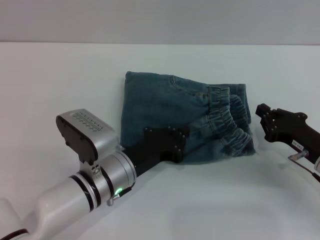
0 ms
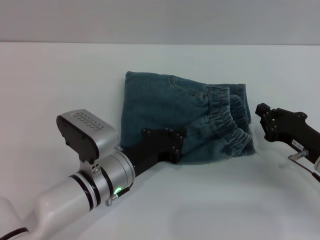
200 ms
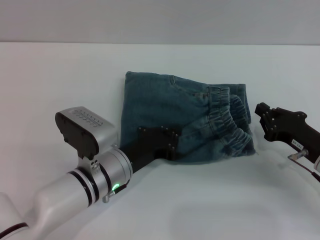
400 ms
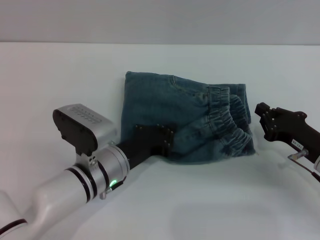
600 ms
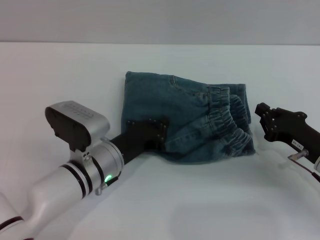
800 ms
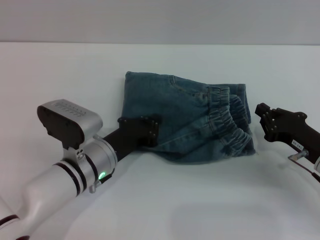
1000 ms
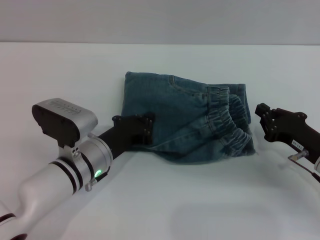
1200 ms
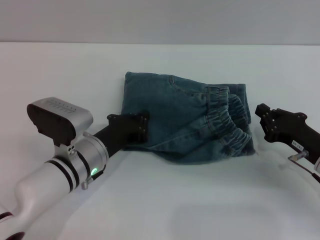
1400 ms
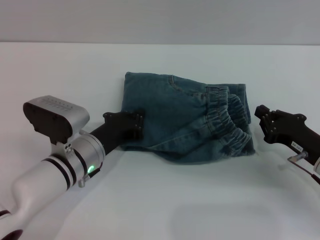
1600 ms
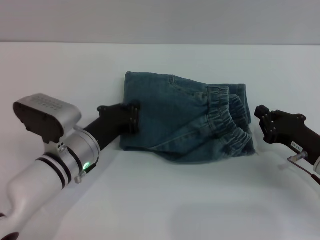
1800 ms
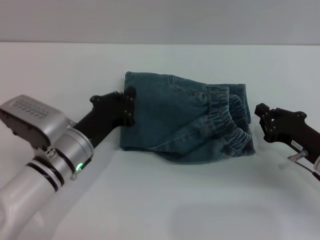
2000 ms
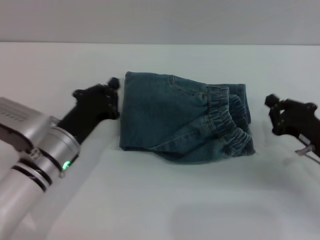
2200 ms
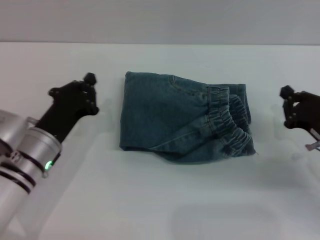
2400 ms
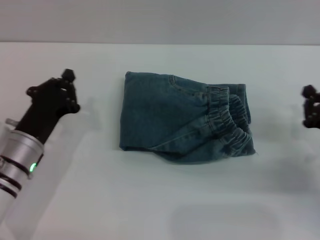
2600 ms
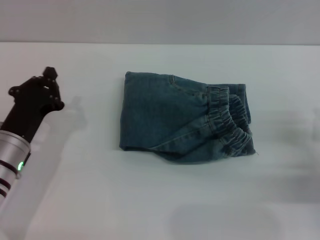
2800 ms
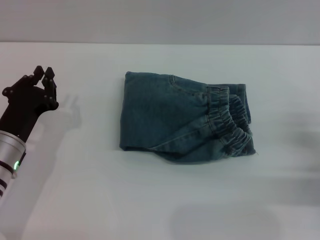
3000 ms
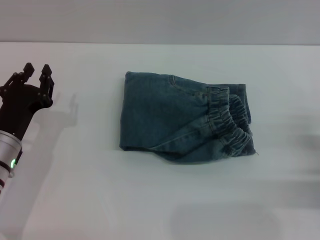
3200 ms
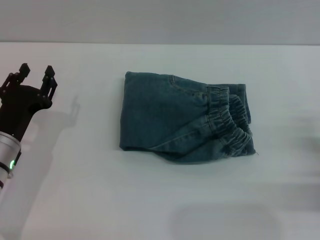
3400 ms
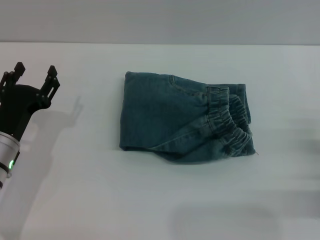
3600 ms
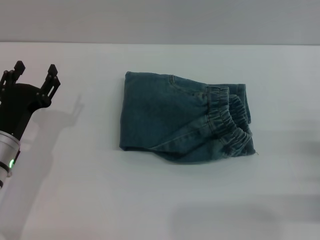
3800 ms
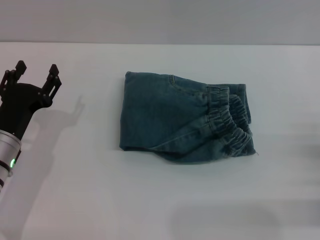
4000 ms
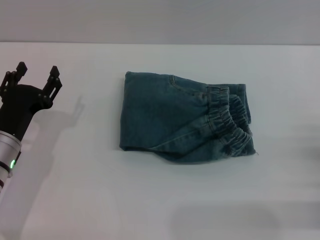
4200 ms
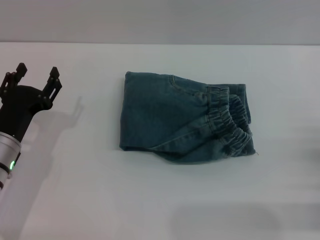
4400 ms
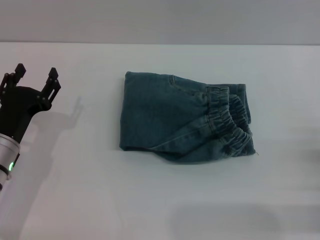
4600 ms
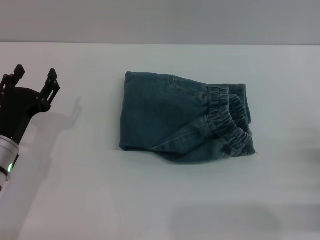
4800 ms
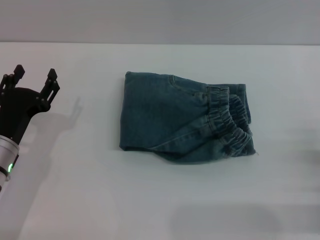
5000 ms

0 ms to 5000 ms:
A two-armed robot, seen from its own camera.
0 ms to 1600 ms: The left gripper moves roughly 5 cm.
1600 ms to 3400 ms: The right gripper moves to the right, about 10 cm, and opens up. The left gripper travels to the left by roughly 10 cm, and opens.
3400 ms to 5000 ms: The left gripper opens.

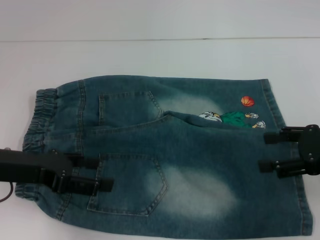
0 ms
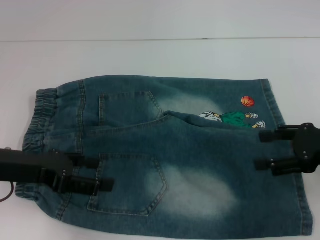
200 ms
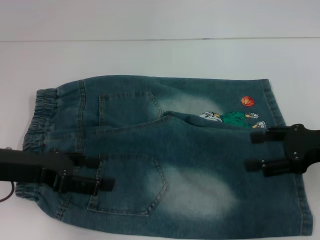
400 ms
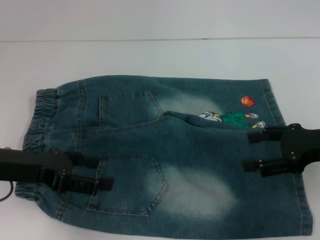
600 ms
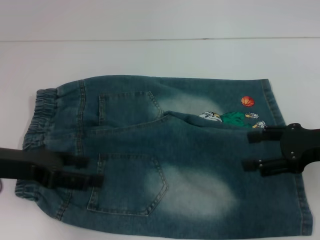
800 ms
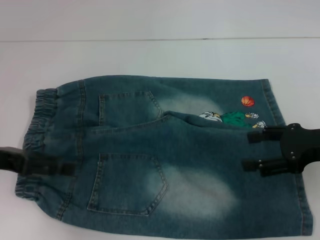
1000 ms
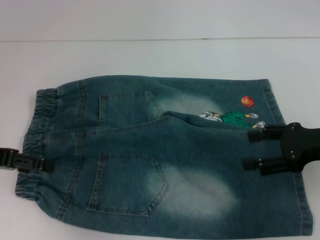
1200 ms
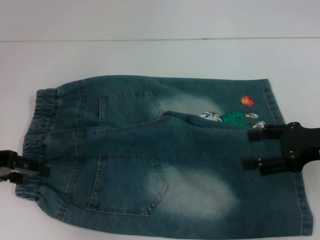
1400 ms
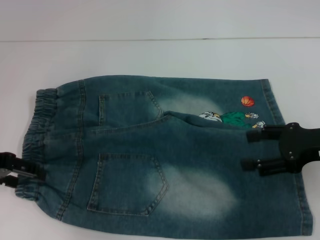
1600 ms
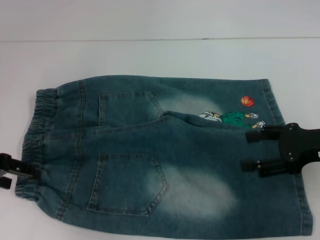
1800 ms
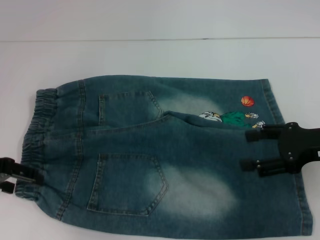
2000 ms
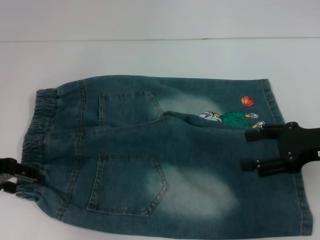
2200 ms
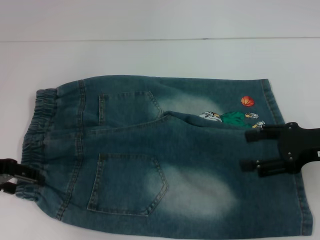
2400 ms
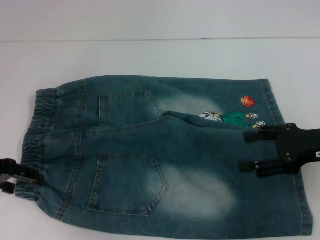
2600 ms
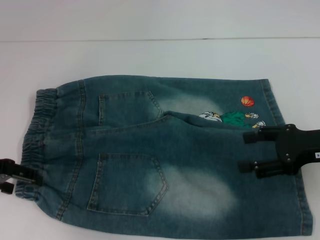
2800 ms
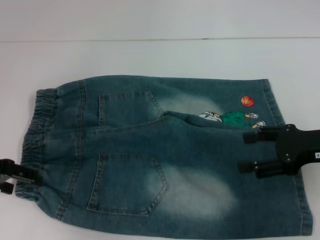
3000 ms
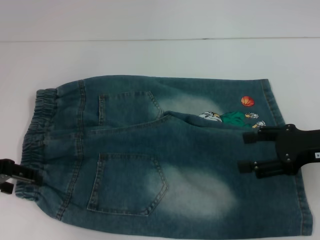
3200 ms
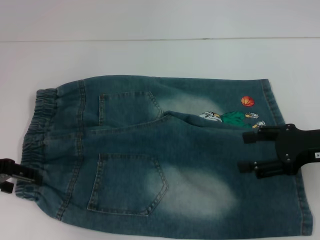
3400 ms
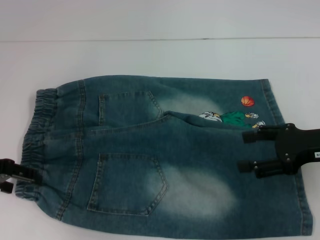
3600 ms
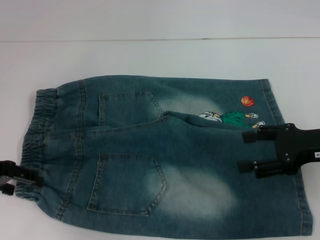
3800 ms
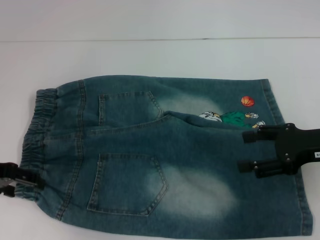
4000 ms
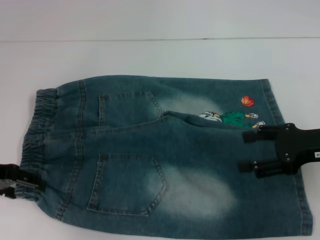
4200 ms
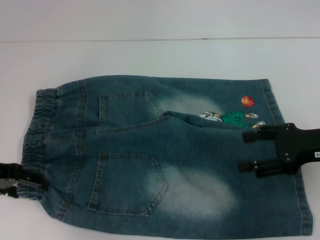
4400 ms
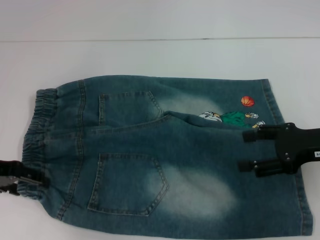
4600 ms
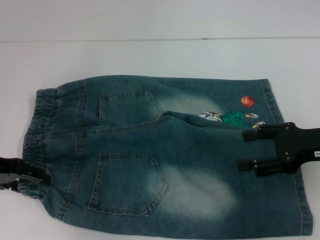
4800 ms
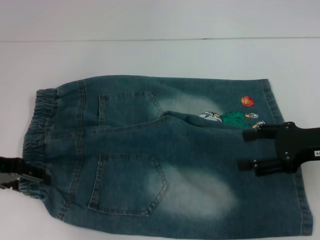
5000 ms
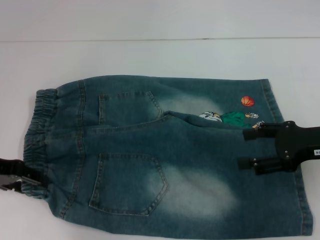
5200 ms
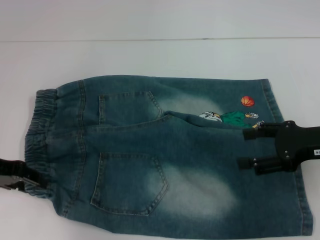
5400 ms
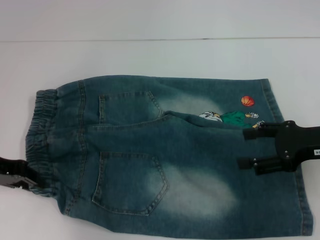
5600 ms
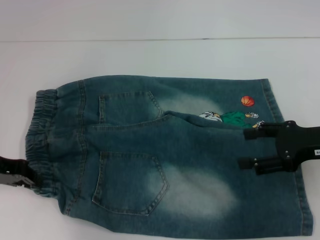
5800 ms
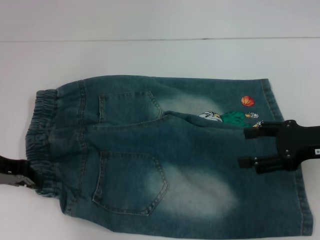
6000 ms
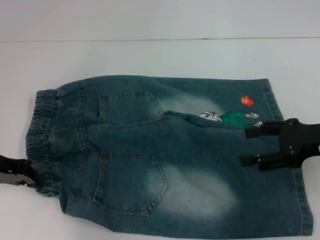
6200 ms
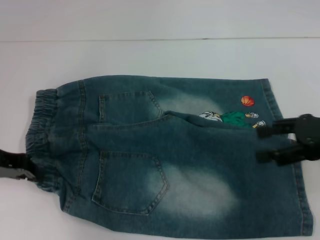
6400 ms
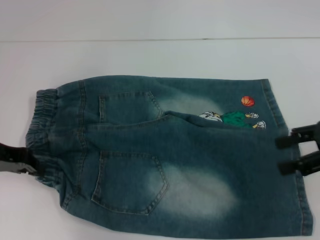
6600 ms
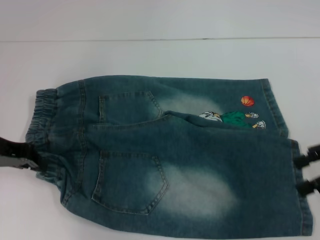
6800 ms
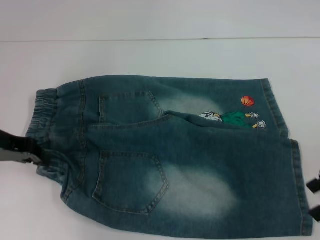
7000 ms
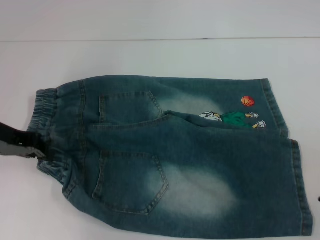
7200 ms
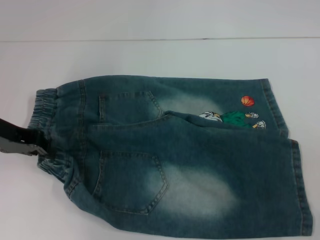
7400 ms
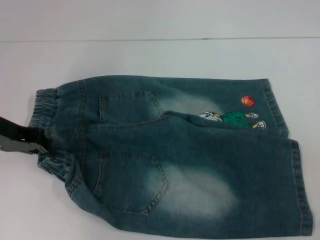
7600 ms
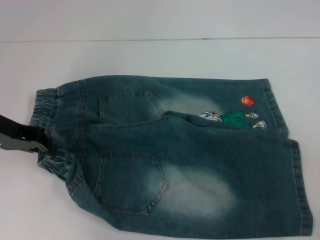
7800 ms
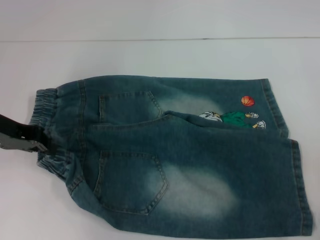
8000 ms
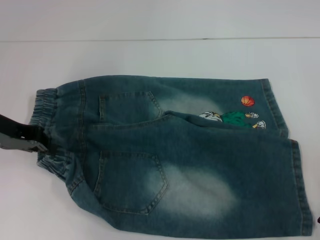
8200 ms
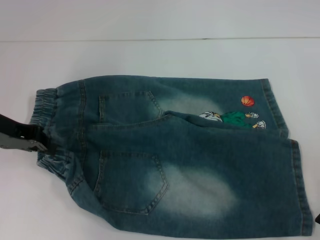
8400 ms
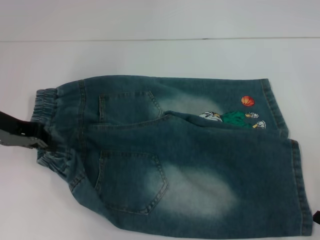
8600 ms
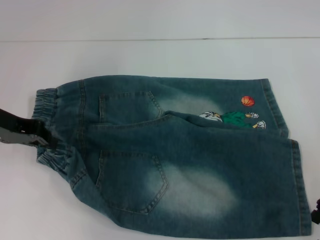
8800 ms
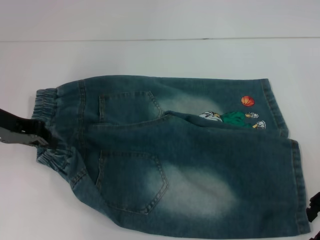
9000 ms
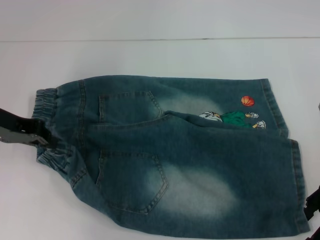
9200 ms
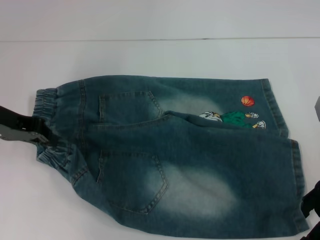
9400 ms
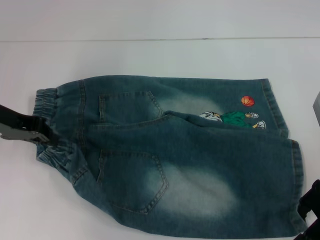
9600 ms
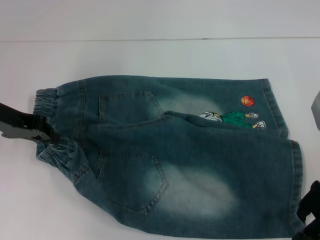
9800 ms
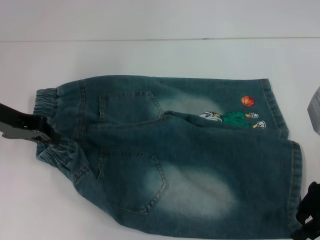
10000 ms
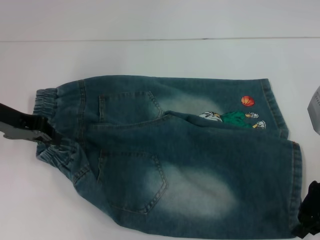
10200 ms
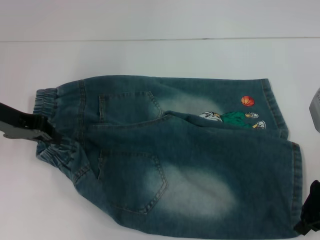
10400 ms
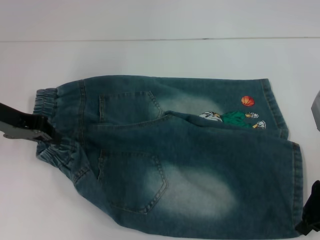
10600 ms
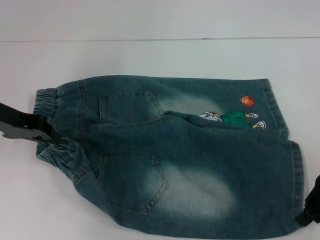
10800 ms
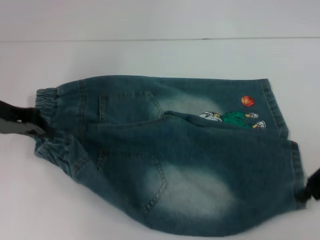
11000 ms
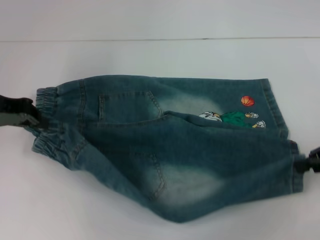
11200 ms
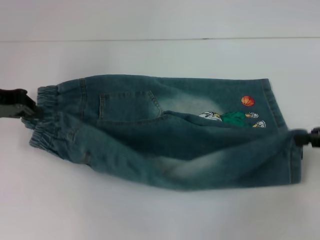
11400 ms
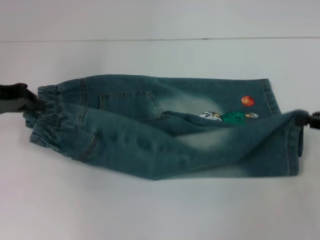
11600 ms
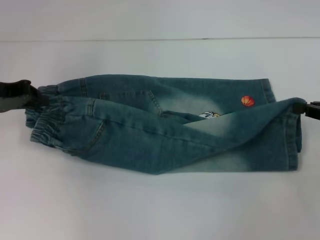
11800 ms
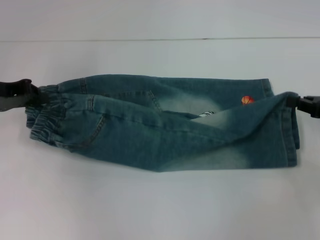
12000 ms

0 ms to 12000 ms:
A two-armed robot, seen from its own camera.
Step, 0 ms to 6400 ms: Hold the lower left waistband with your left hand.
Step, 6600 ms to 10400 ms: Grab the lower right pant leg with your right hand.
0 ms to 1600 ms: The left gripper shifts roughly 5 cm to the left.
1600 ms to 3000 ms: The grippers make only small movements.
3000 ms to 4400 ms: Neither gripper changes place.
4400 ms to 6000 ms: The left gripper closes.
7600 ms to 9000 ms: The grippers stay close to where they were, moving slightly.
9000 ms to 10400 ms: The right gripper closes.
10400 ms to 12000 ms: The right gripper moves to the right, roughly 10 cm.

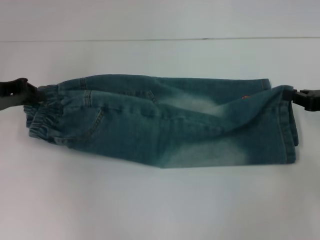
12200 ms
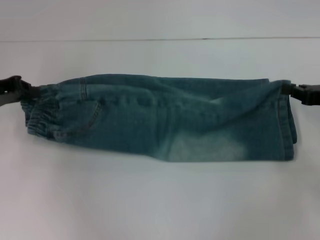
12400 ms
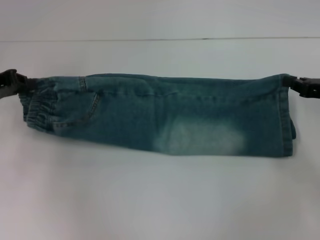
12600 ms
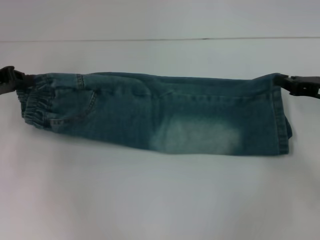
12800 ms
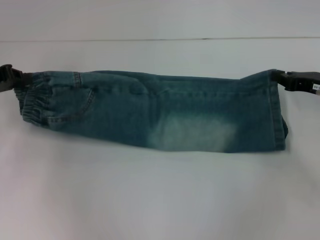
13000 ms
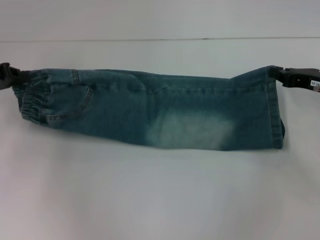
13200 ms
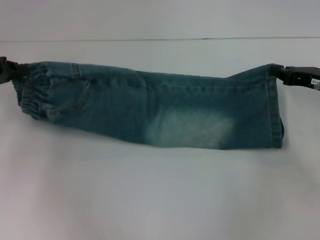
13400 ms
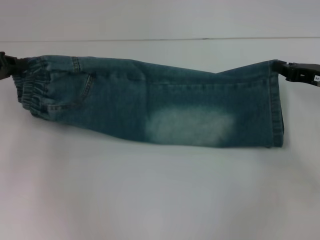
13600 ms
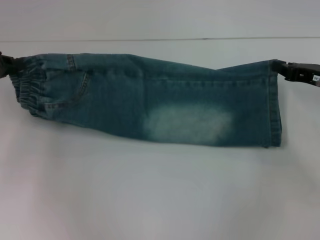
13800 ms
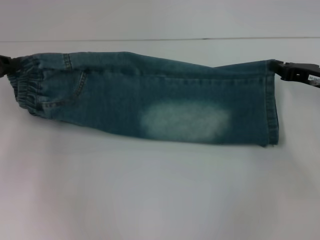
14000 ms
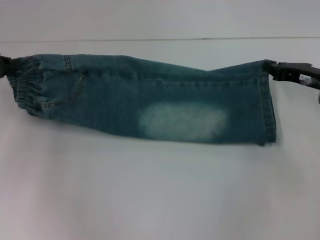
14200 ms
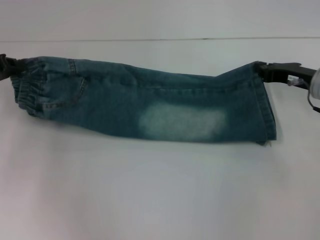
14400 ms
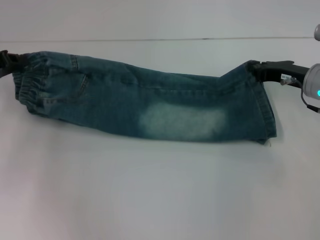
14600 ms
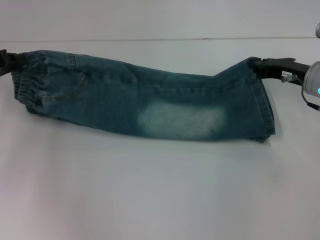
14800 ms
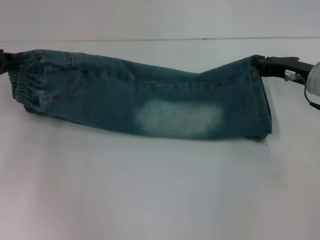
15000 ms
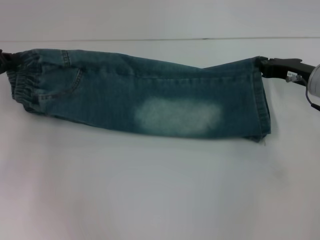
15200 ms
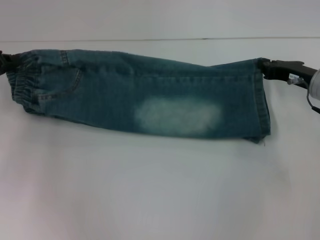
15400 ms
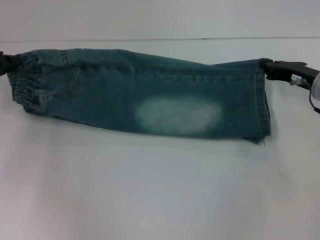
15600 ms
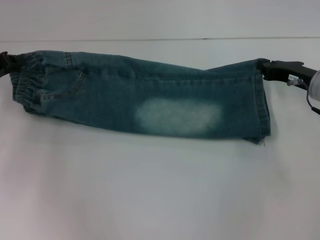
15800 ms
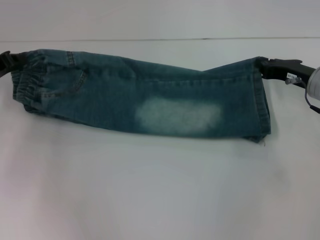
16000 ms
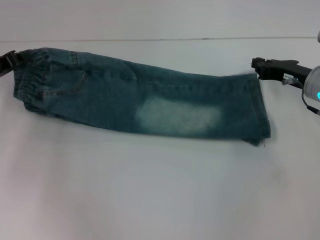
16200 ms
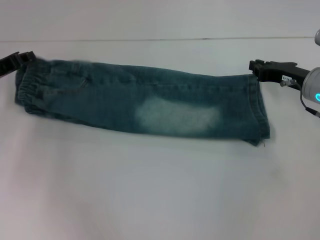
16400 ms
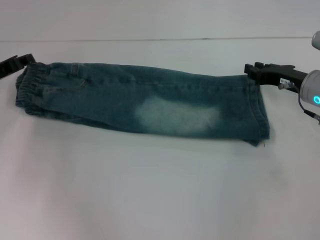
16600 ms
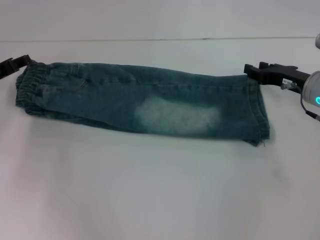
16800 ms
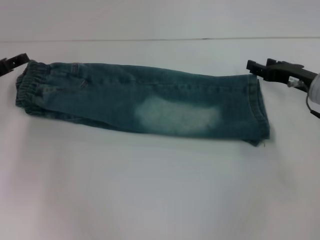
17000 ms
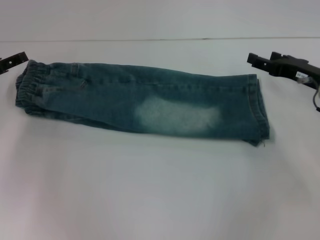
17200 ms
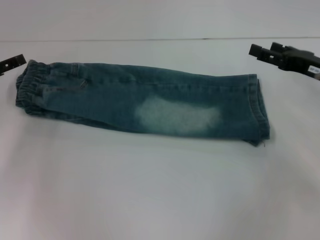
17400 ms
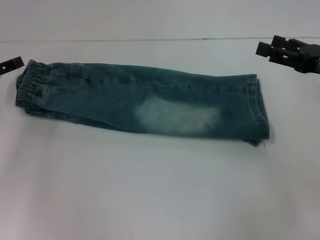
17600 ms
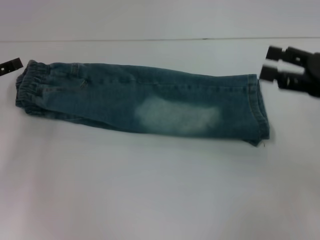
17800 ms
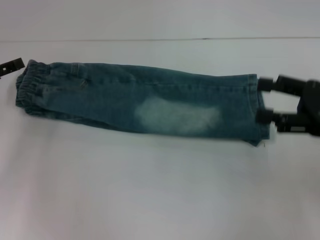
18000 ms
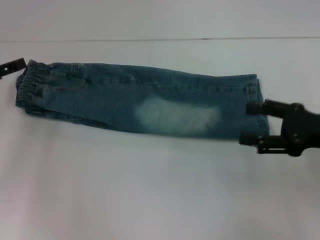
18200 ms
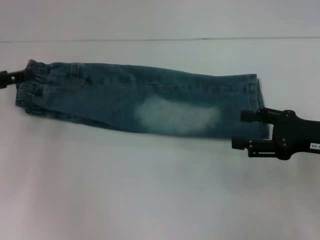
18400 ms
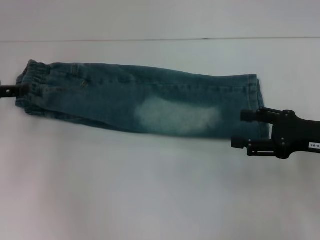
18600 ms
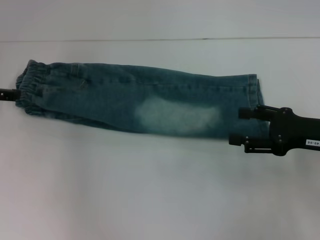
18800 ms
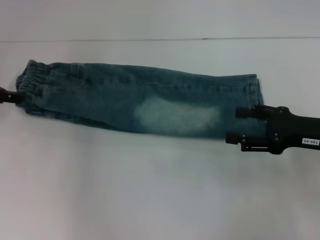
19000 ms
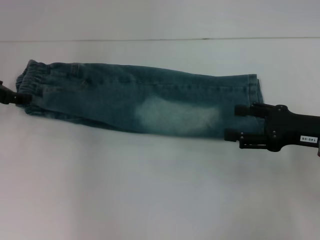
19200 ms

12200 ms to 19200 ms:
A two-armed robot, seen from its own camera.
Step, 12200 ms to 16800 ms: Fold upward with your right hand.
13600 ms to 15000 ms: The right gripper shifts by about 5 cm.
15000 ms to 16400 ms: There are only small adjustments of the grippers.
16400 ms to 17800 ms: The right gripper is displaced backward and upward by about 10 cm, and opens its fingers; the left gripper ends up about 5 cm from where it was, and opens.
17800 ms to 19200 ms: The left gripper shifts by about 5 cm. The right gripper goes some 5 cm downward.
